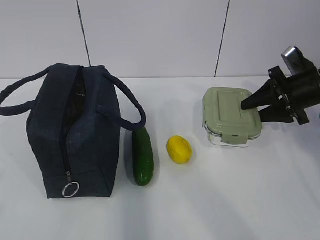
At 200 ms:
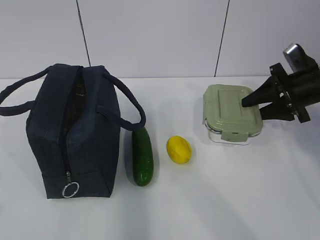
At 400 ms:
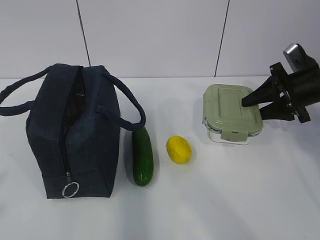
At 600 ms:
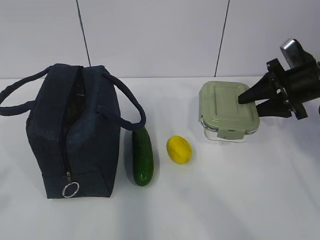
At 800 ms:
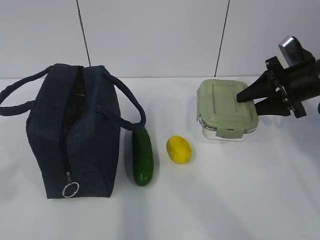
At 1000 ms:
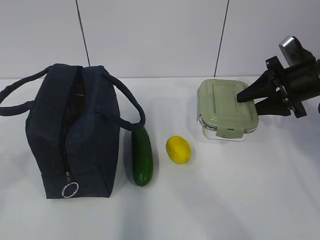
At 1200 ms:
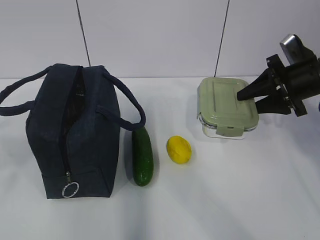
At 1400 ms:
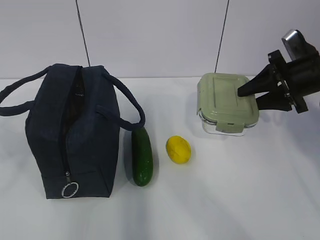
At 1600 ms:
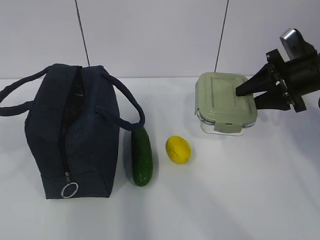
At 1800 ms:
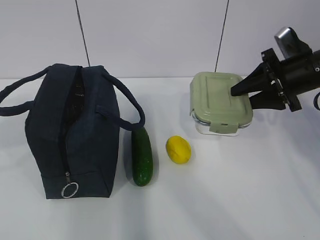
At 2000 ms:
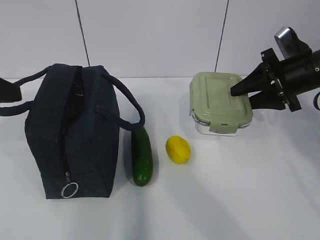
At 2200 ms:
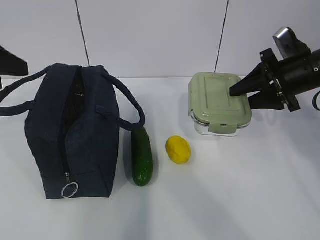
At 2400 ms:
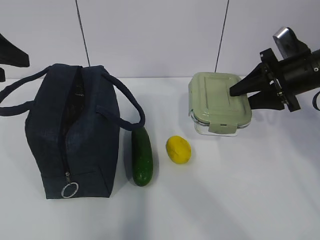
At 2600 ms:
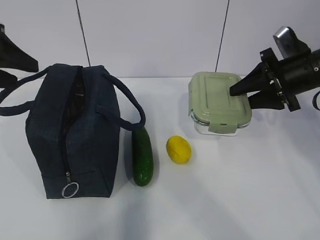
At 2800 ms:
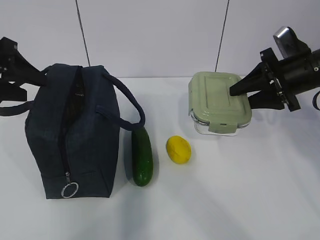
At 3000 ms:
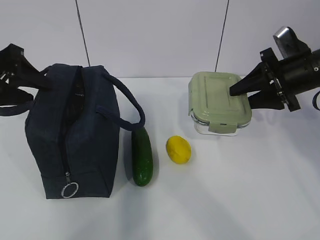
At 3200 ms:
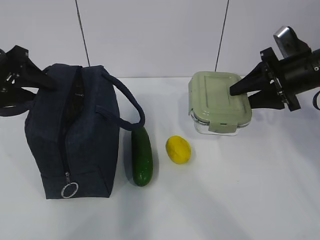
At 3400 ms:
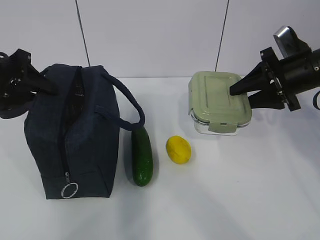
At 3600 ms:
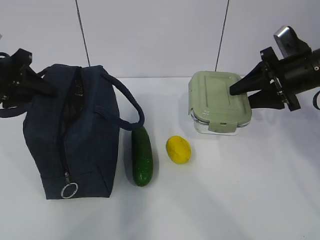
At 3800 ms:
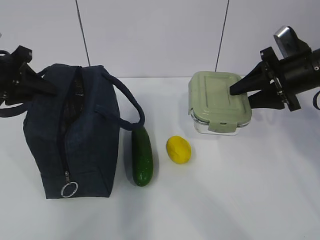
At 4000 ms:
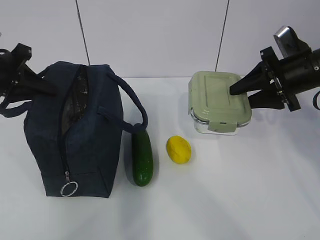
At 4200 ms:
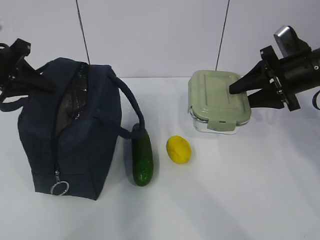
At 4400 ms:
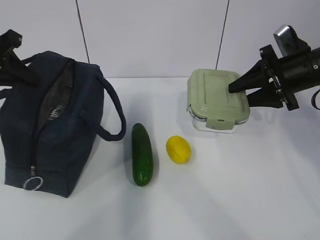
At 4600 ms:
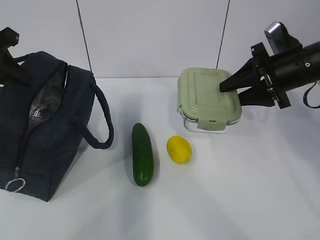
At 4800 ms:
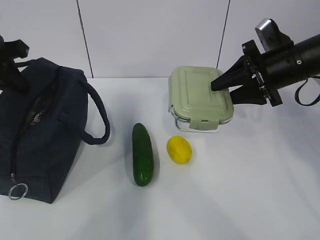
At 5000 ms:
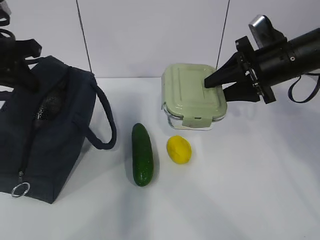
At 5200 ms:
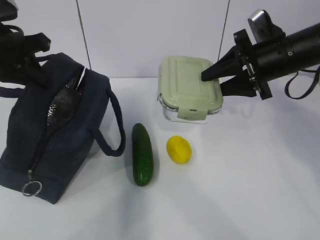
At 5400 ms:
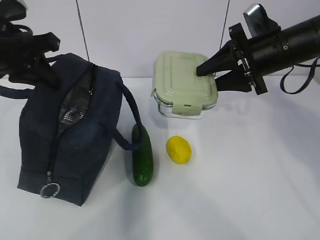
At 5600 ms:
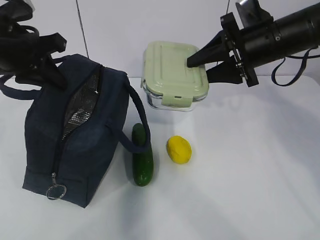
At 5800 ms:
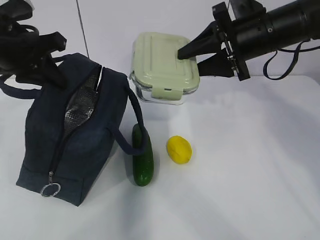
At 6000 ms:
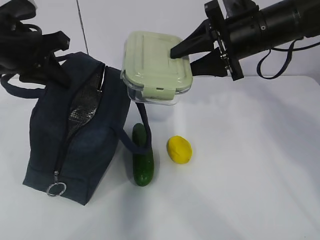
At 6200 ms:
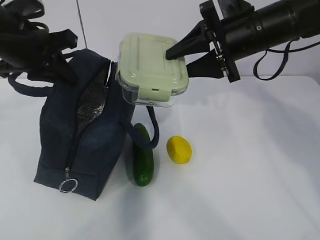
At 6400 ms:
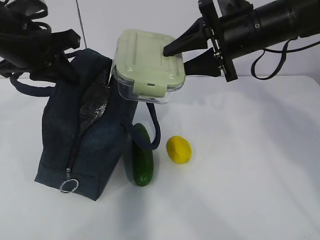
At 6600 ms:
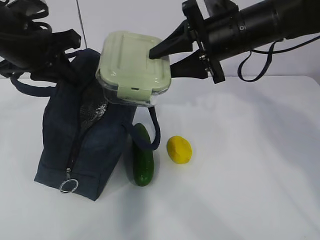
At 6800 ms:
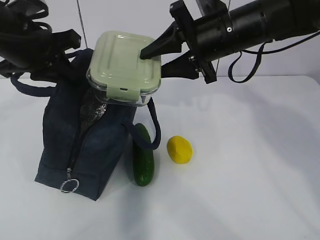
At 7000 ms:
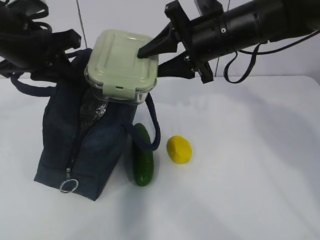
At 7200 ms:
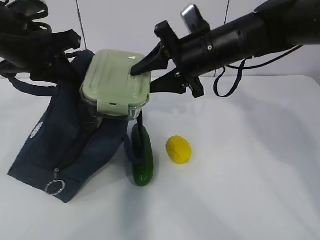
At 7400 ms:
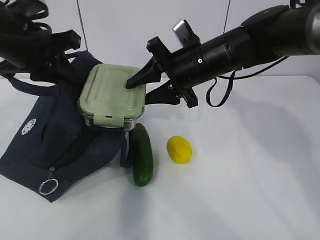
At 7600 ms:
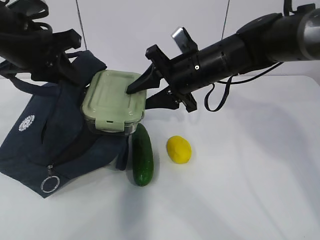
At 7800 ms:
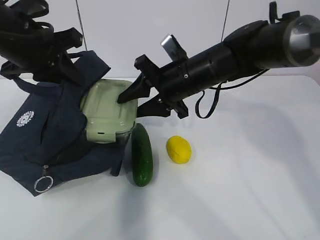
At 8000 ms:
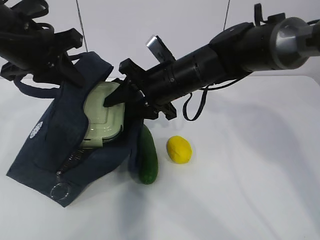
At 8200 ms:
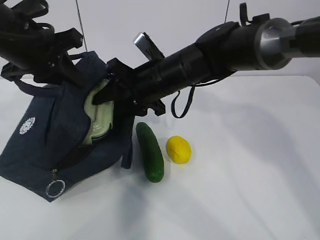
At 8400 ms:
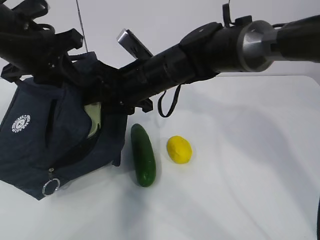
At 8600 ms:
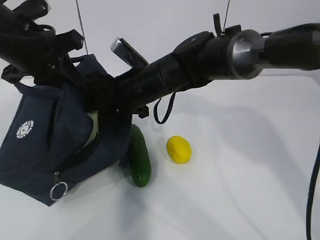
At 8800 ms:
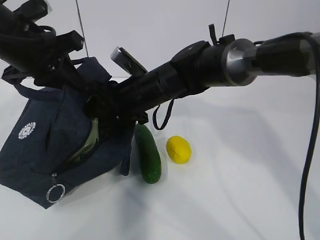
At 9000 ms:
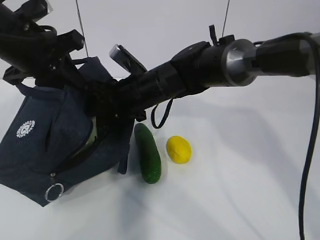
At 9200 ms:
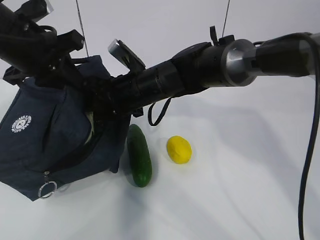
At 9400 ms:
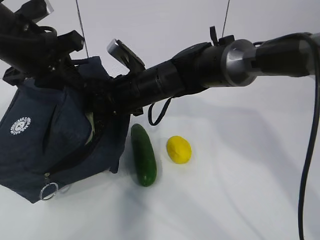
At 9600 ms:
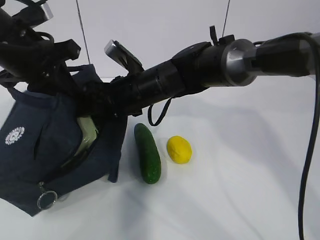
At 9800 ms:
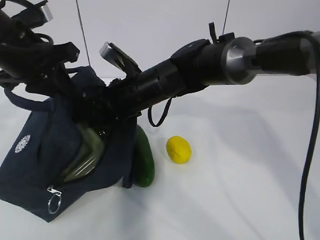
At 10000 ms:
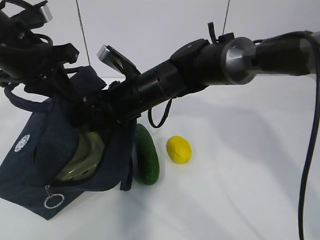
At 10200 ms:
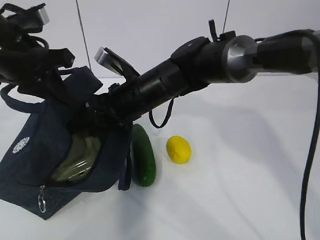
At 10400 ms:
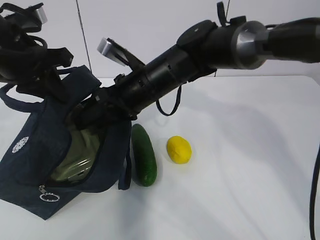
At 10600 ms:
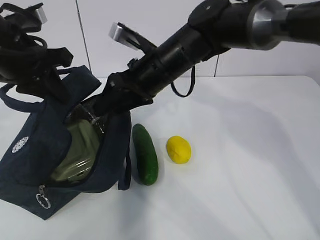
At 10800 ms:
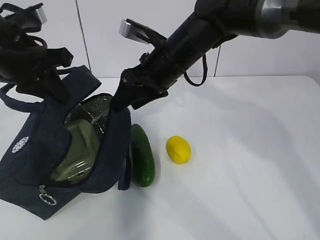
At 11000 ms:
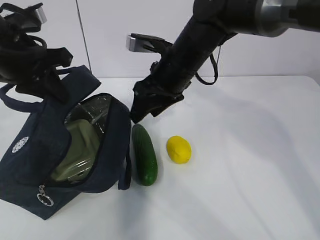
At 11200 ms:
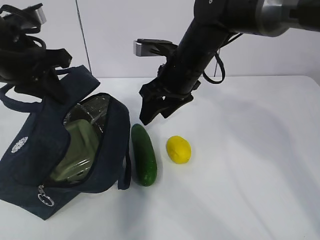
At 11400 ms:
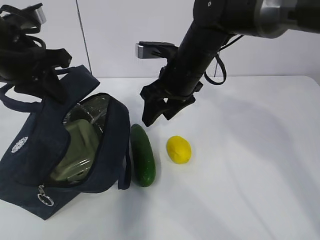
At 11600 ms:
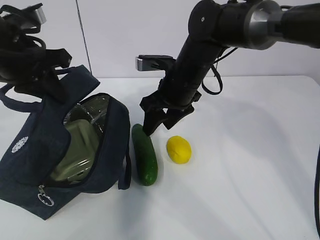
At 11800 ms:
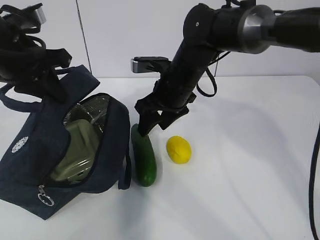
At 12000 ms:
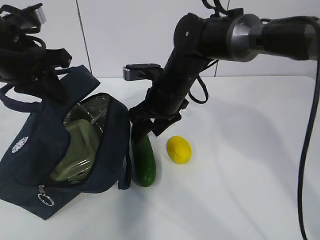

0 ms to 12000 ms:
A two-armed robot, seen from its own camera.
Step, 3800 ms to 6600 ms: Grab the cucumber with your right hand.
Step, 6800 ms to 10200 ms: Place it into the bag with your right hand.
0 ms to 1600 ms: The left gripper shifts approximately 15 cm forward, and opens.
1600 ms to 3000 ms: The left gripper is displaced forward by some 20 cm.
3000 ms to 4400 ms: The left gripper closes up.
4400 ms to 6000 ms: The right gripper heads to the left and upward, covering approximately 10 cm; the left gripper travels to the right by roughly 10 cm.
6000 ms to 7600 ms: The right gripper goes roughly 10 cm to the left and downward.
7600 ms to 9000 ms: The right gripper goes roughly 10 cm to the left.
10400 ms to 12000 ms: The right gripper moves roughly 5 cm.

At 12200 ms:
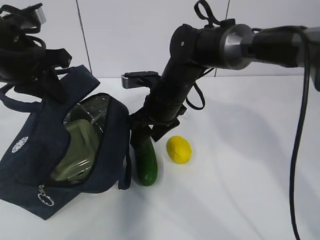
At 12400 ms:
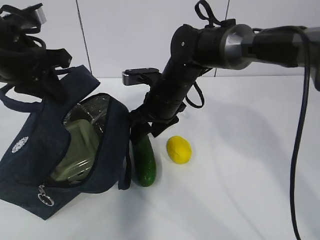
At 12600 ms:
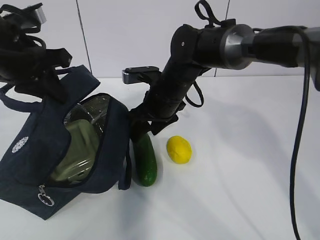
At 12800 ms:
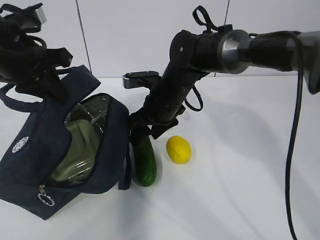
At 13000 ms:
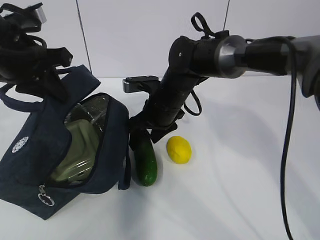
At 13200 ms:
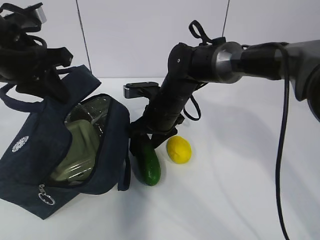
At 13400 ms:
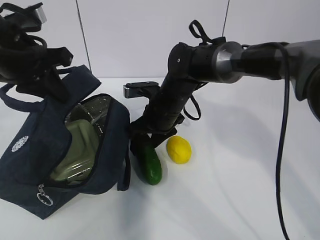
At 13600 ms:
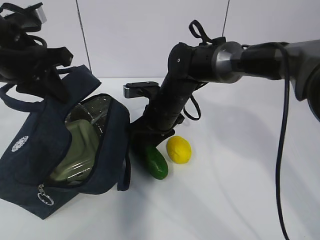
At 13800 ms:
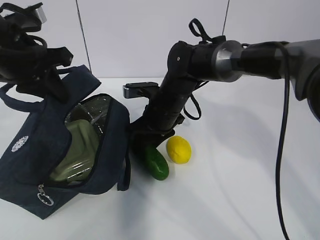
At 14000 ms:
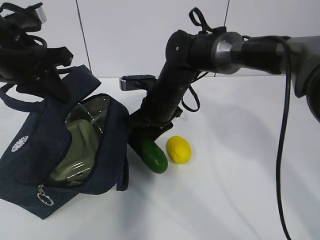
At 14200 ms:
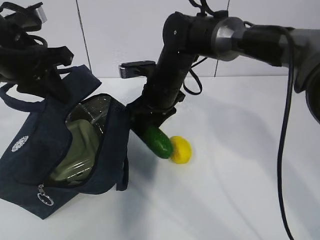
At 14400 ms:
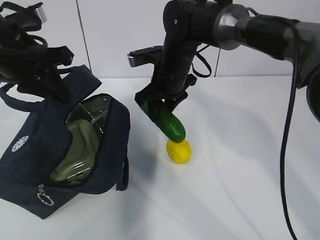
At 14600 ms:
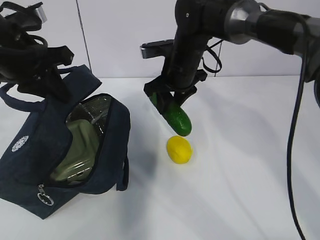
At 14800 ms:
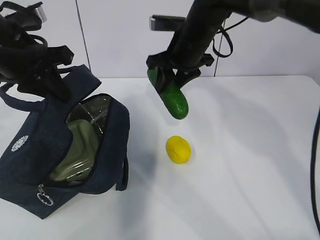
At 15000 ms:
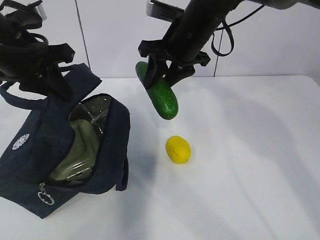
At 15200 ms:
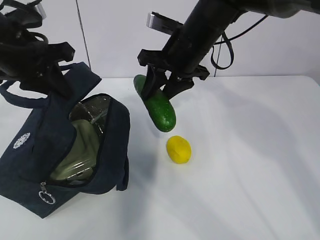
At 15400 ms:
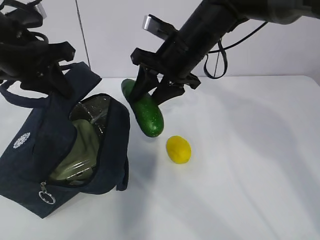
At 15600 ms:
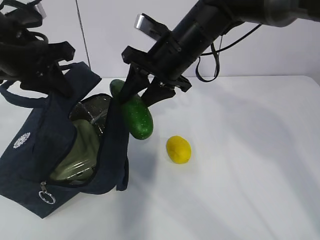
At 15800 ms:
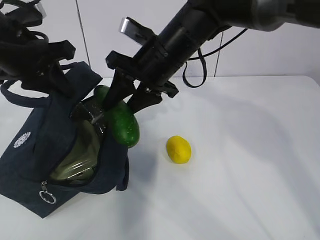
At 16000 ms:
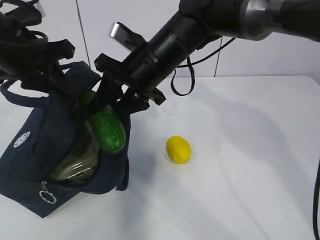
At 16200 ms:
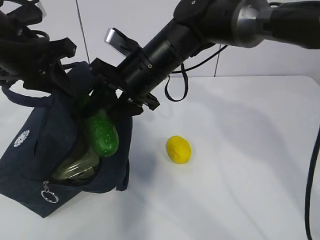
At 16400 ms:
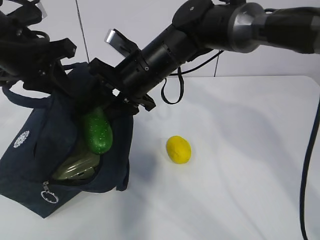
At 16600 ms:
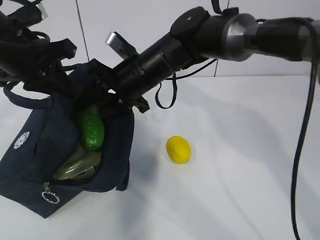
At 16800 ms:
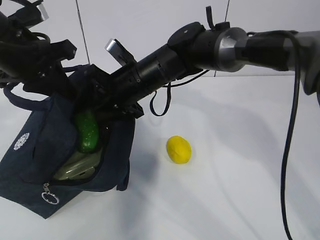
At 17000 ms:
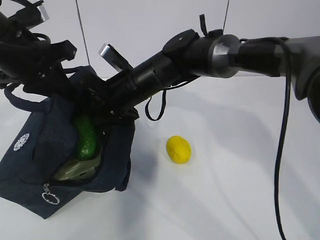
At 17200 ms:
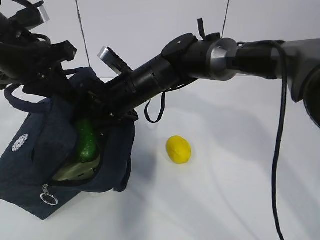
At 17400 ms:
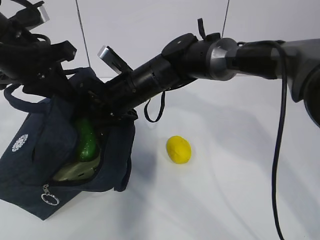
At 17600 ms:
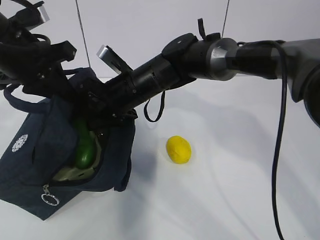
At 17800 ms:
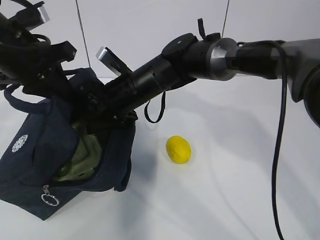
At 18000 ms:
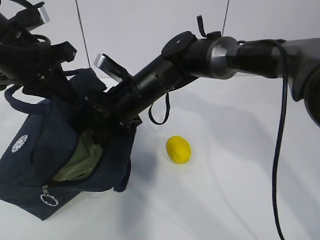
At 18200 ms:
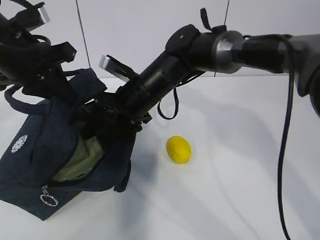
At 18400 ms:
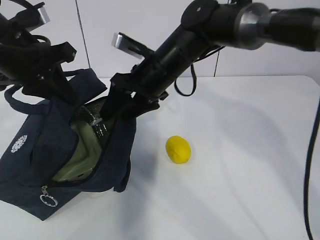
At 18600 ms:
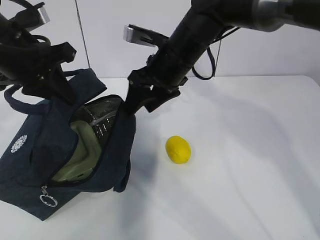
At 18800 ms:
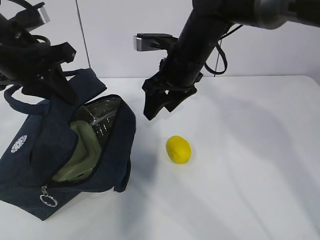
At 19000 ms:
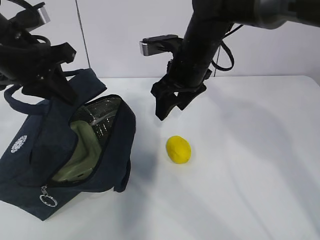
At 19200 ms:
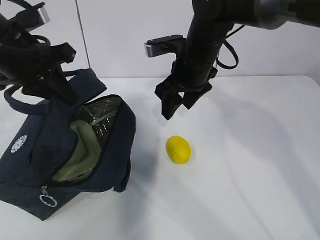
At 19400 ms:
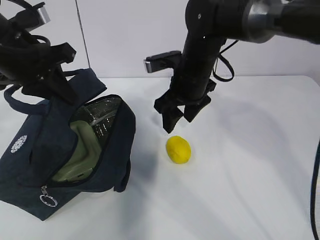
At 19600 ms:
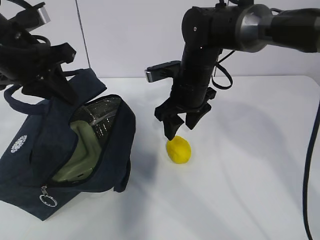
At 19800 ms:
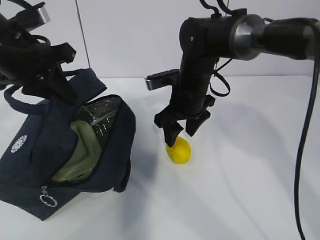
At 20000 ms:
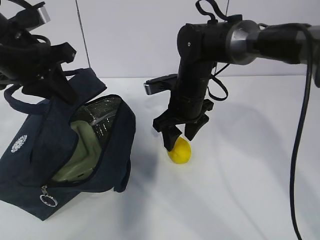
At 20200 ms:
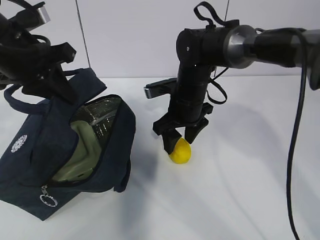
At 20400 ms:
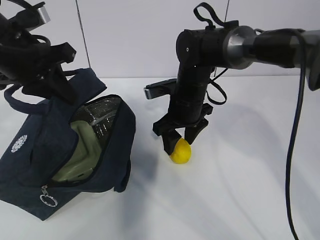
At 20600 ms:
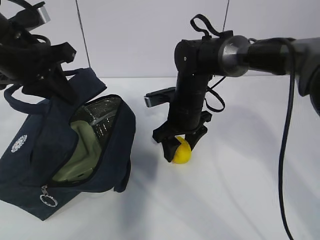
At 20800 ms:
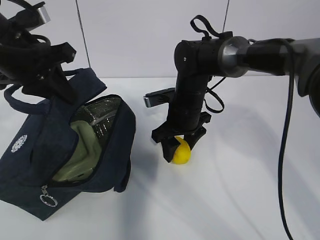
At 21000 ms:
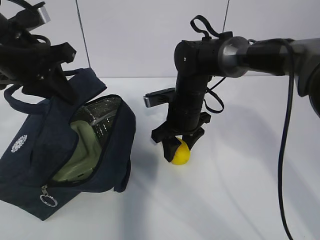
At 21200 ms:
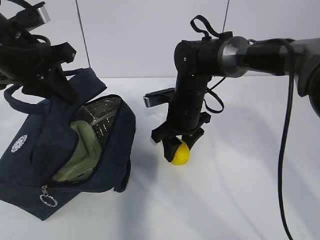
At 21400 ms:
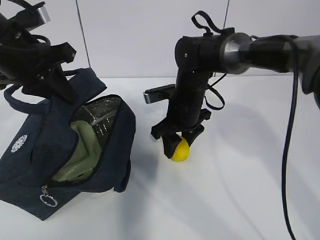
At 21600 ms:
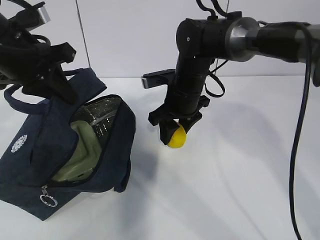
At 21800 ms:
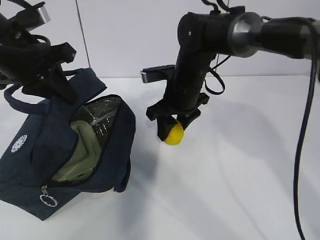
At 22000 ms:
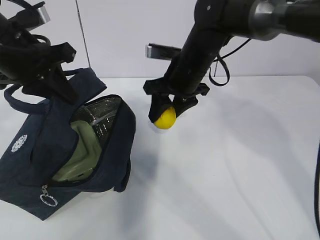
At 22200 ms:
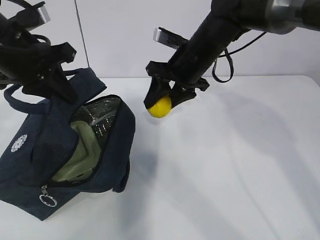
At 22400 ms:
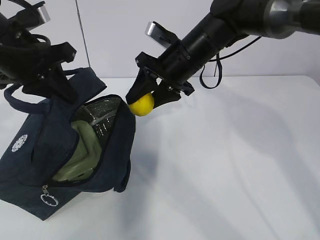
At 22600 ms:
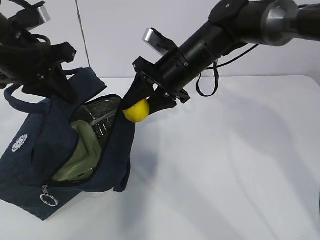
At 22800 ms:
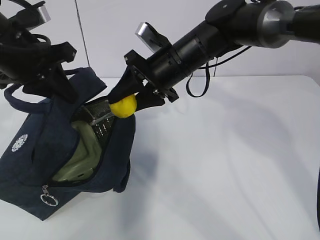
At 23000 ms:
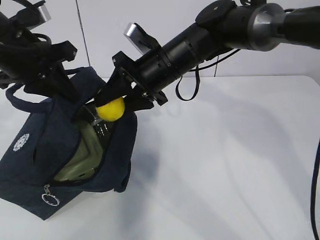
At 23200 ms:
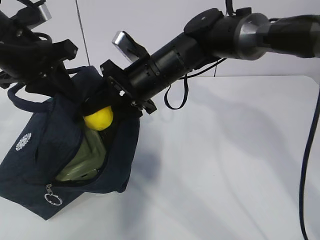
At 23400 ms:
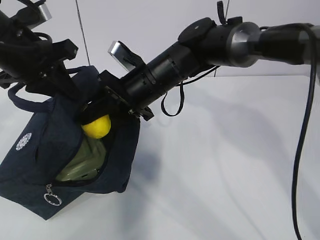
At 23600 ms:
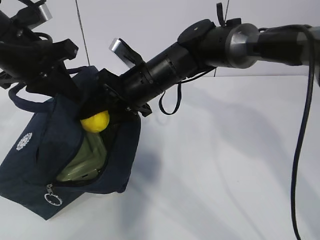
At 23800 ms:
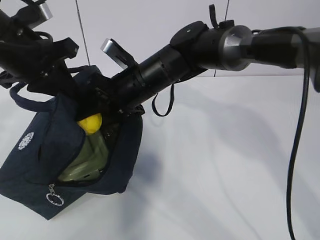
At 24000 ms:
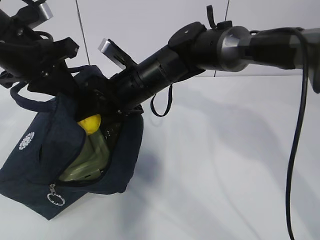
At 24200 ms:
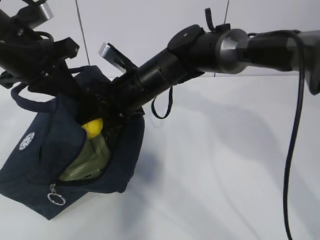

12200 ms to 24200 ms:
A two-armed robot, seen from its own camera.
Step, 16200 ms to 20200 ms: Grab the lunch bag with your right hand.
12200 ms to 13800 ms: The grippers move only a little.
13800 ms to 15200 ms: The right gripper is displaced upward by about 15 cm.
15200 ms to 16600 ms: The right gripper goes roughly 10 cm to the left.
18200 ms to 19800 ms: The right gripper is displaced to the right by about 10 cm.
19800 ms to 21200 ms: The grippers stay close to where they were, moving slightly.
21200 ms to 22600 ms: The right gripper goes roughly 10 cm upward.
22600 ms to 24200 ms: The right gripper goes approximately 10 cm to the left.
